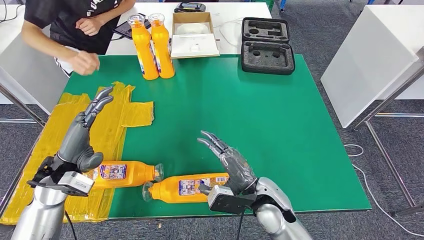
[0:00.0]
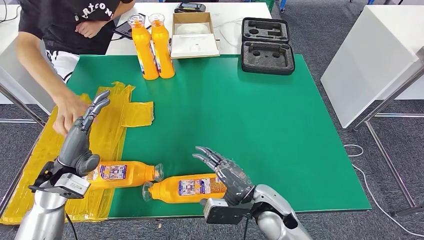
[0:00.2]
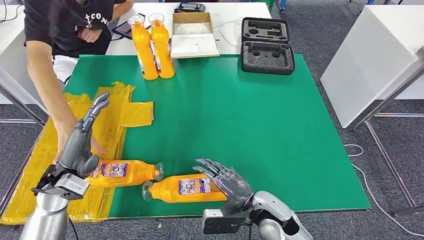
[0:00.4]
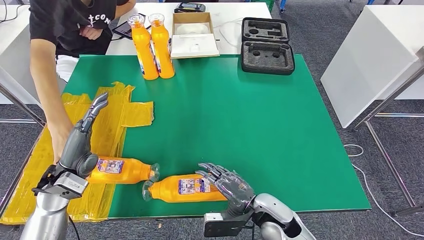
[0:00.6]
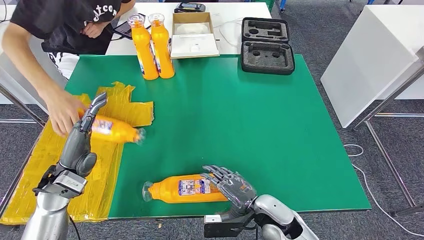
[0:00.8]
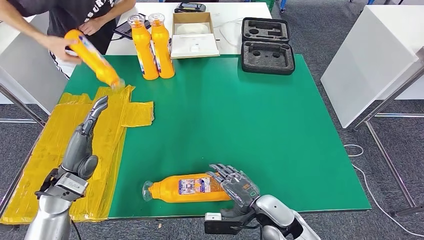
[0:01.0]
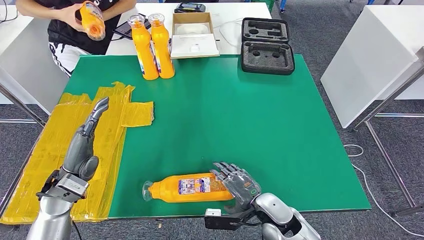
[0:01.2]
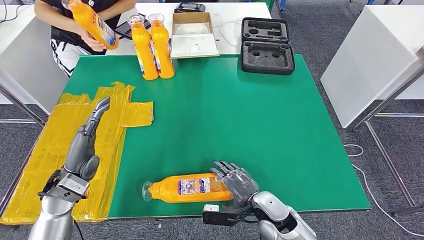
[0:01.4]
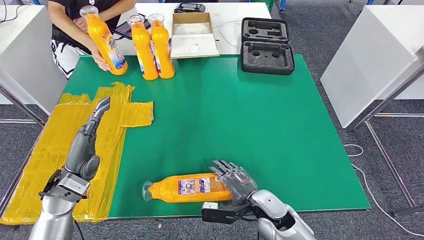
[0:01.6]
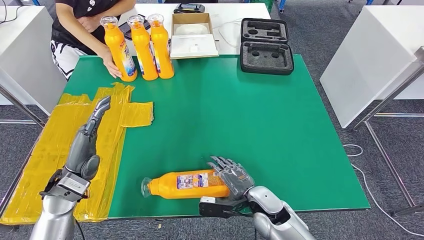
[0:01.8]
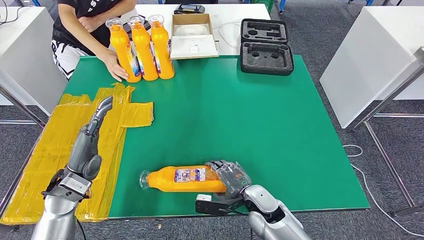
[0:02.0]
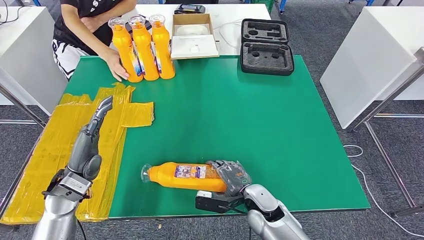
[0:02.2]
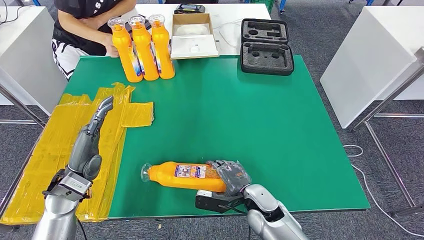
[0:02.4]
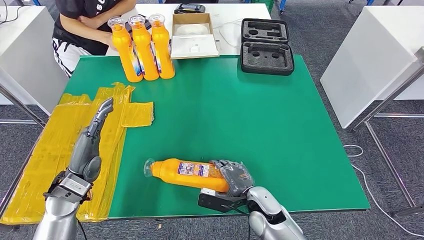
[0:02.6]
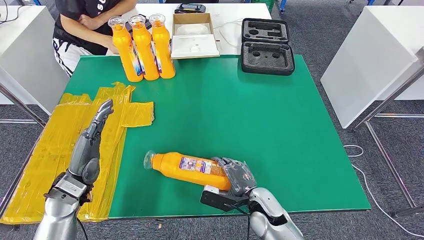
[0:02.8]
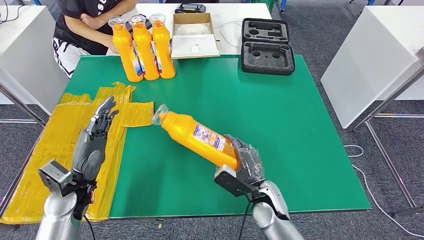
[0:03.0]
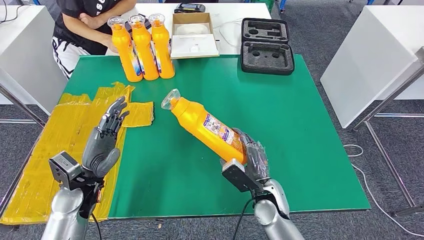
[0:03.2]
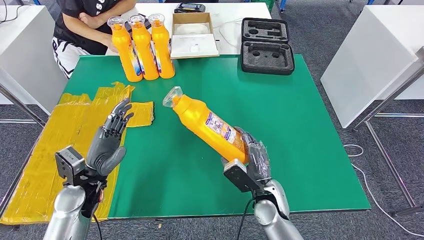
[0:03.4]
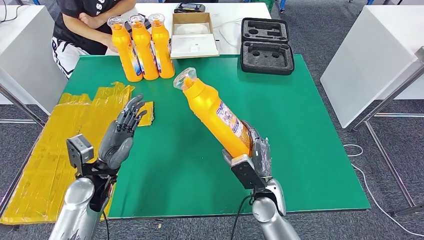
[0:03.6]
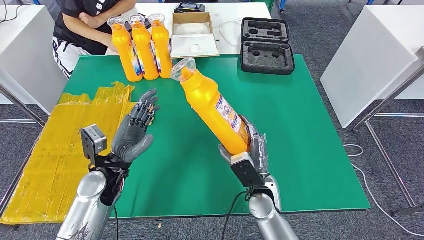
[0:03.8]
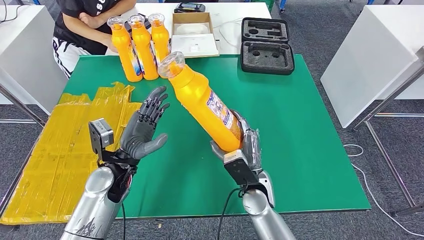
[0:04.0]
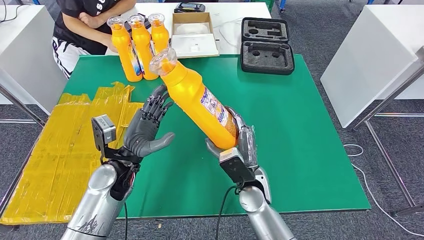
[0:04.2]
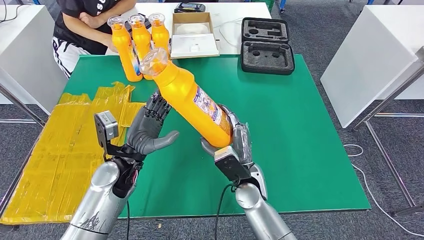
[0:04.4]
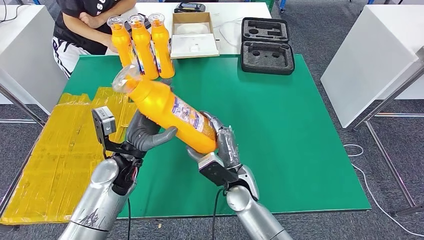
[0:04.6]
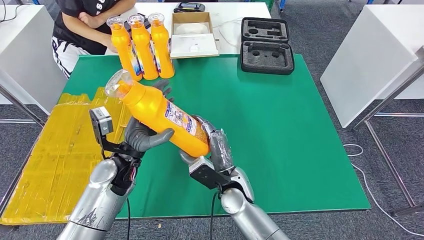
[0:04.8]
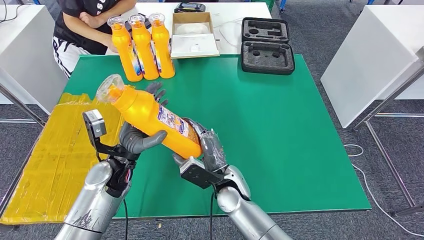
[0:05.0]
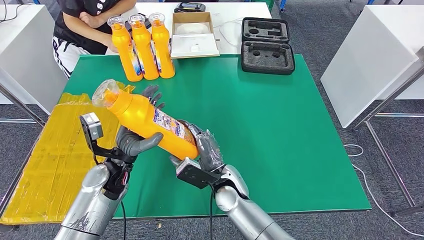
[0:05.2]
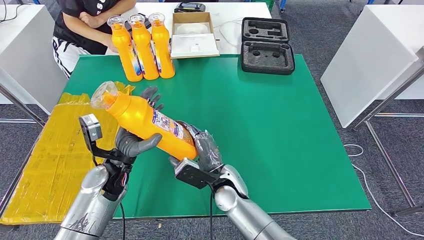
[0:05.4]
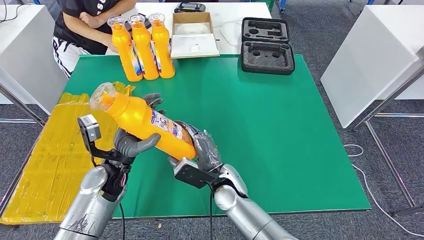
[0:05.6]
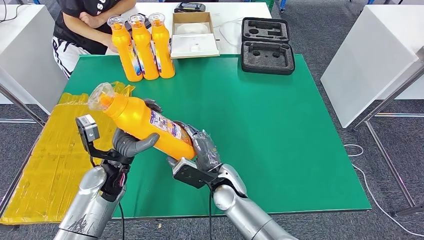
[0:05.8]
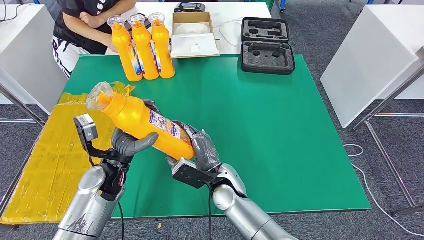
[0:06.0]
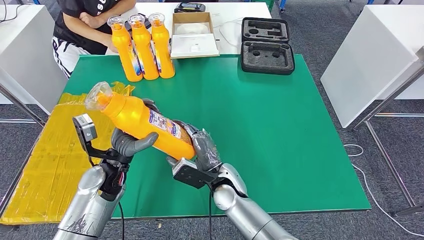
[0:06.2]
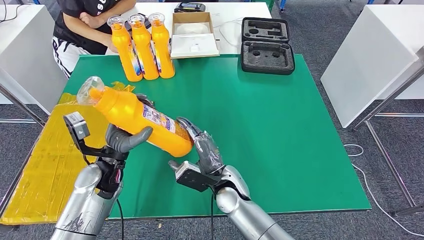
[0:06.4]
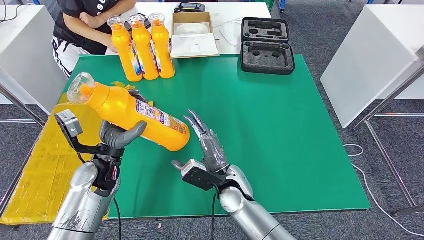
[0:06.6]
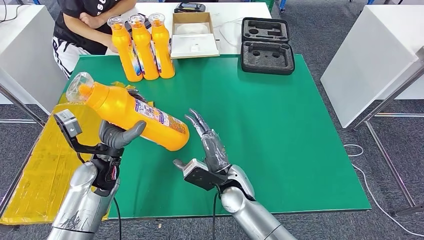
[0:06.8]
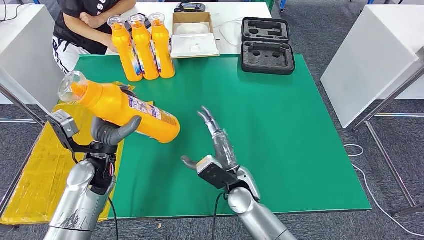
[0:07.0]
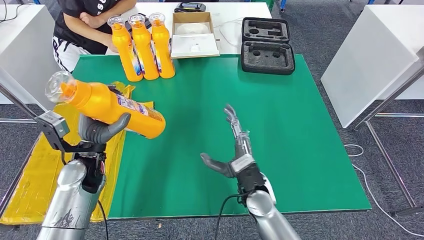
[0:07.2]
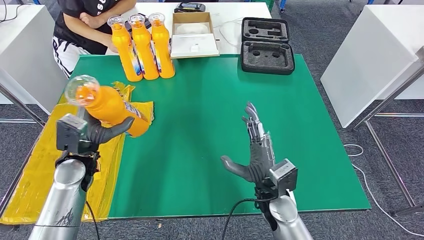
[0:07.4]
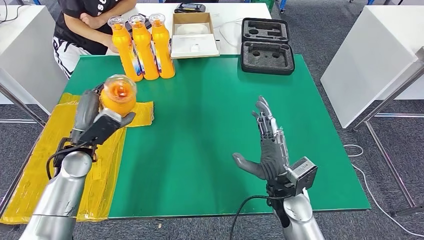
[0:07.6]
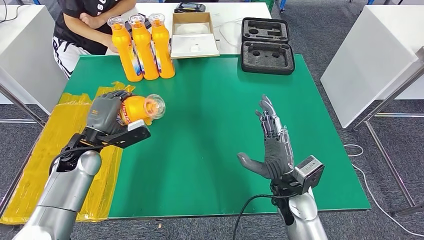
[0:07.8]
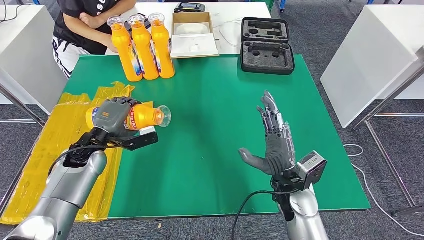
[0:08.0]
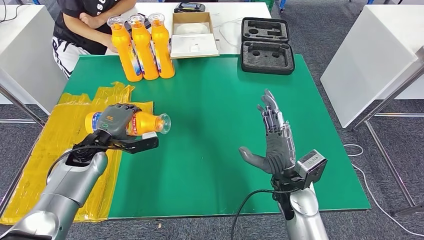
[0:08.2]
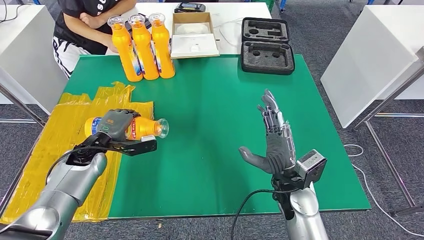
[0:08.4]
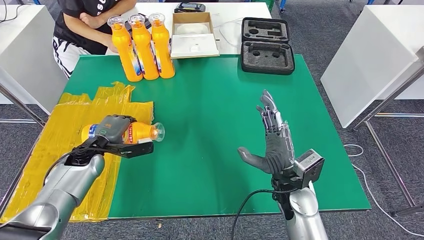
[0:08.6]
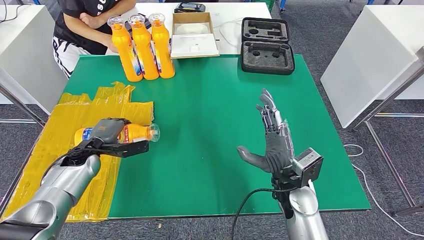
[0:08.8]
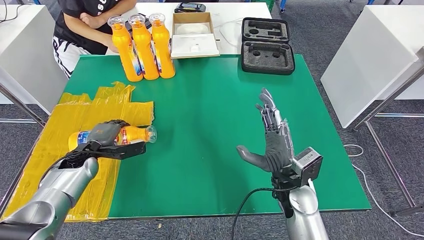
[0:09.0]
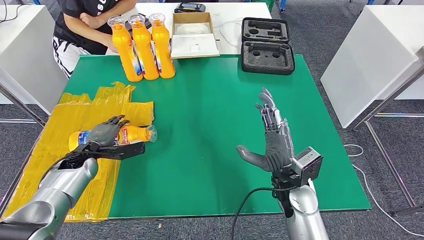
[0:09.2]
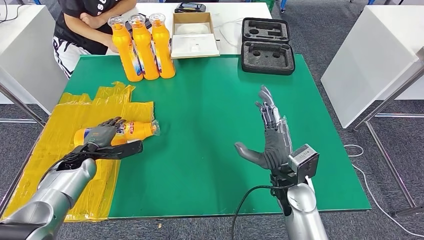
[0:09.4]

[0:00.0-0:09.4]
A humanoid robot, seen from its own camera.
Step, 0:00.0 to 0:05.4: Pick up the fast-moving consumer goods bottle from the table.
Step, 0:05.6 to 0:09.4: Flip the fast-moving consumer goods bottle to the front side.
0:00.0 to 0:01.6: The right hand moves downward, roughly 5 cm.
0:03.2 to 0:04.8: The left hand heads to the right, covering some 10 cm, while the right hand goes about 10 cm to the left.
0:04.8 to 0:06.2: The hands stay close to where they were, moving slightly.
0:06.2 to 0:07.8: The right hand travels to the right by approximately 15 cm, while the left hand is displaced to the left and forward by some 10 cm.
0:07.8 to 0:09.4: The left hand is displaced downward and to the left by about 10 cm.
